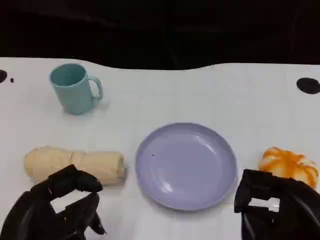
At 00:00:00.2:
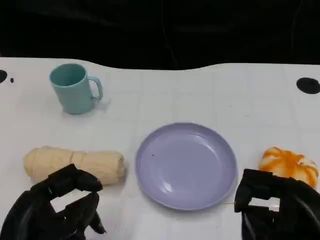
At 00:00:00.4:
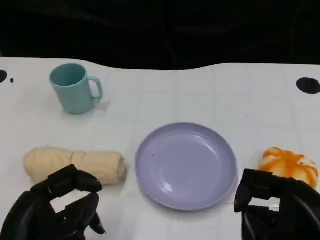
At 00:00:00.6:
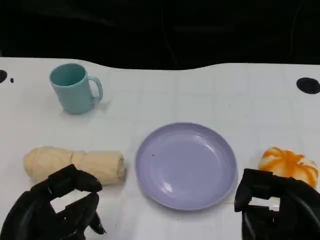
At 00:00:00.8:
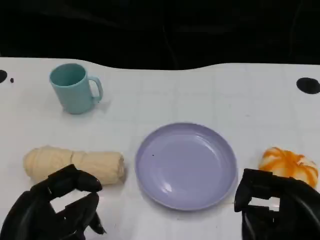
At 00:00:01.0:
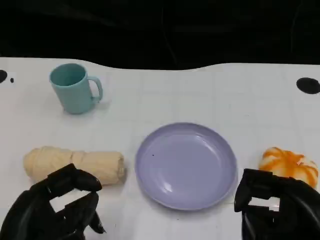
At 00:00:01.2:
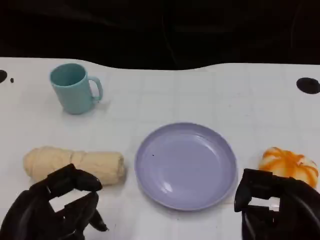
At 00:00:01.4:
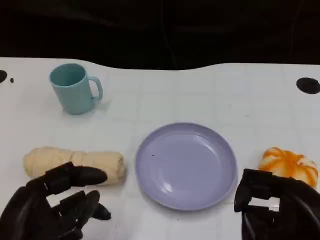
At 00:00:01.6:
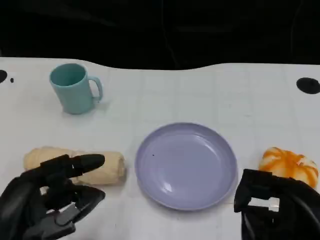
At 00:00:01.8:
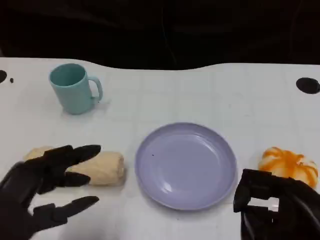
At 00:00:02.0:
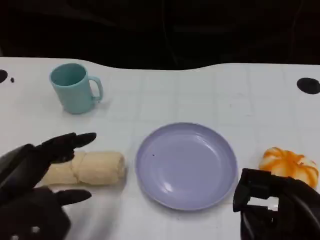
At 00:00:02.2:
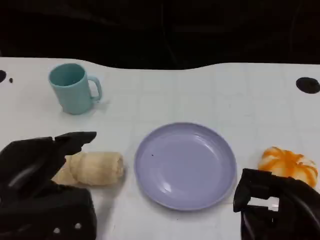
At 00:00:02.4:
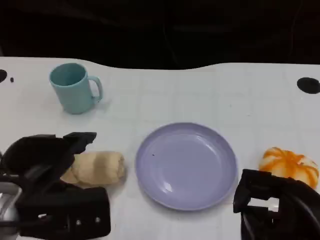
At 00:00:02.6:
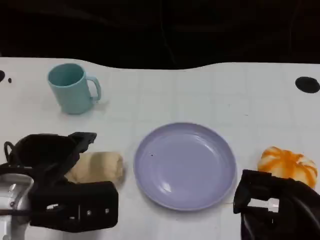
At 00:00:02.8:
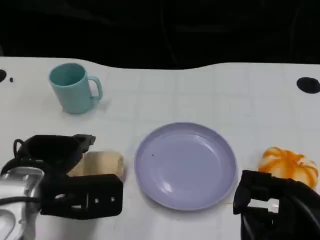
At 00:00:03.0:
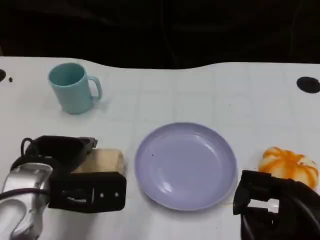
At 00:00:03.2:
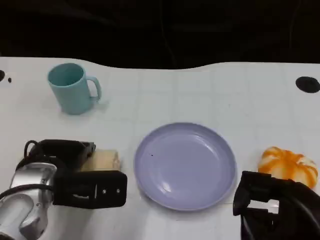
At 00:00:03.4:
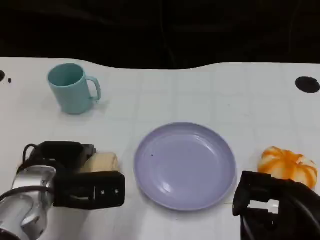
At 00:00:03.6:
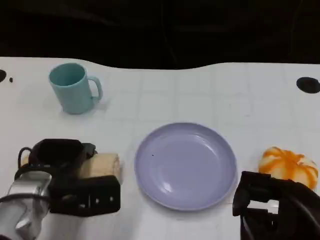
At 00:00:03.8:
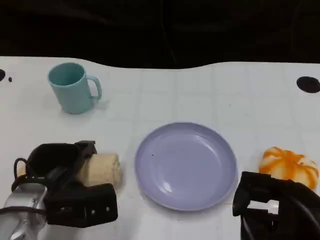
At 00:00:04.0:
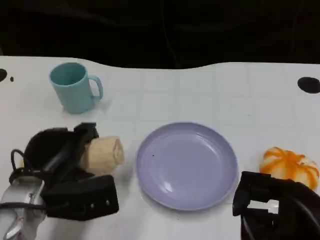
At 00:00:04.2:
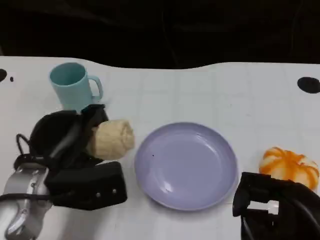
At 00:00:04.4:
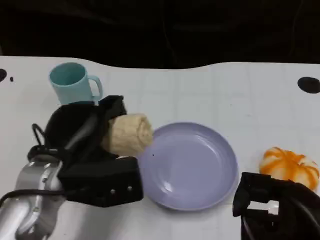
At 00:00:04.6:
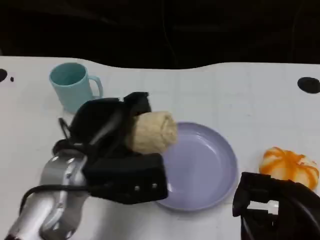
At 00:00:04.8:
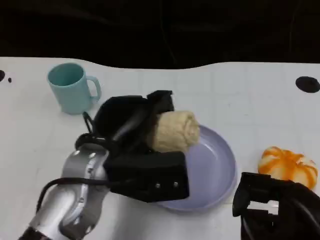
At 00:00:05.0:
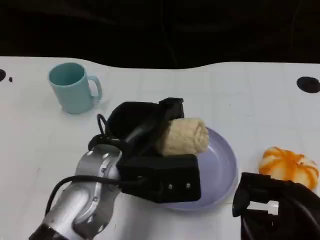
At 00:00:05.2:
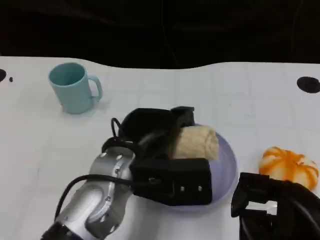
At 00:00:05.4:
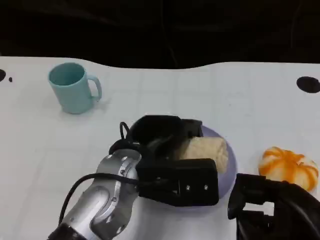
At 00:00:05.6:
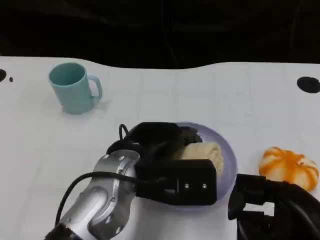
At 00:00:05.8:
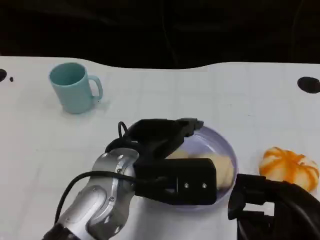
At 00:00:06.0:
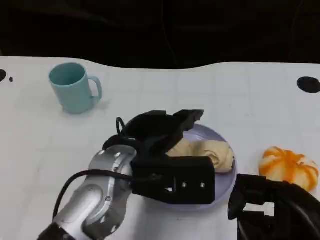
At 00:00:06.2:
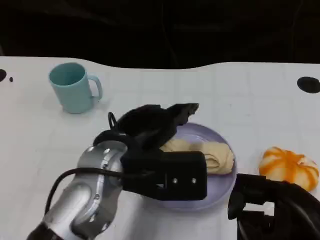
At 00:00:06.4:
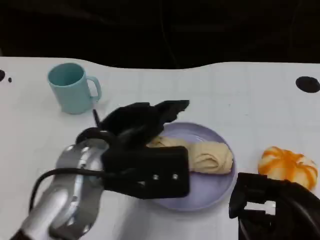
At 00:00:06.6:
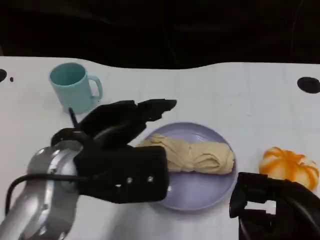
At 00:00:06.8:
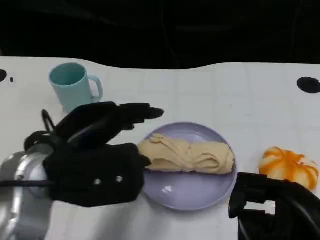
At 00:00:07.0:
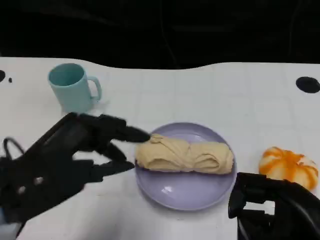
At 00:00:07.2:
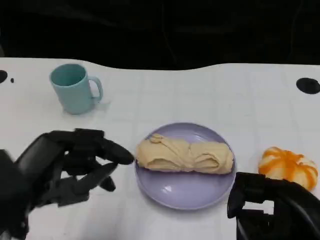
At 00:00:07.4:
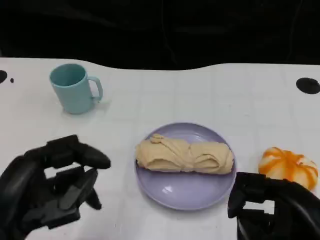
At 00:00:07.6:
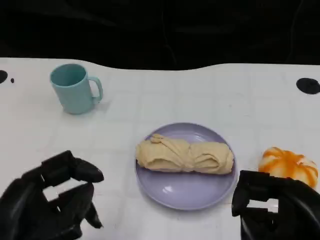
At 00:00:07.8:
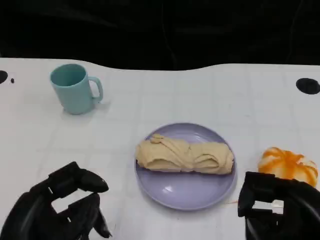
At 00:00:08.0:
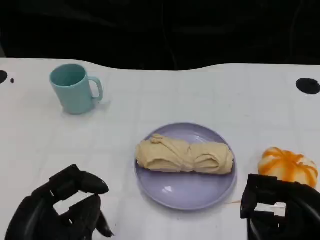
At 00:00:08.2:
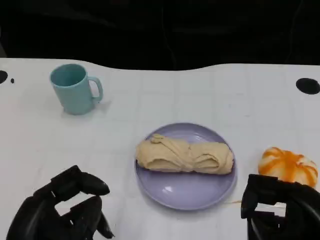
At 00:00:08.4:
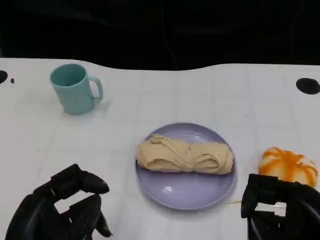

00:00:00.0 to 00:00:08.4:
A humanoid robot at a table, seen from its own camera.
Task of the whole recording: Grasp the towel on the left side of the plate with the left hand and place it into the plate.
00:00:00.0 to 00:00:01.4: There are only small adjustments of the hands.
00:00:01.4 to 00:00:02.8: The left hand shifts about 10 cm forward.
00:00:04.2 to 00:00:05.6: The left hand travels to the right by about 10 cm.
00:00:05.6 to 00:00:07.0: The left hand shifts approximately 15 cm to the left and backward.
00:00:07.0 to 00:00:08.4: The left hand moves backward and downward, approximately 10 cm.

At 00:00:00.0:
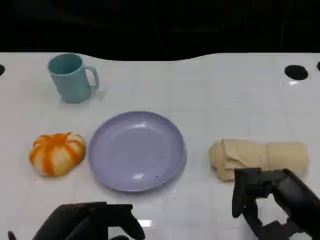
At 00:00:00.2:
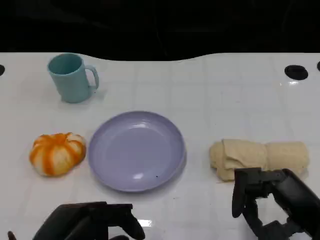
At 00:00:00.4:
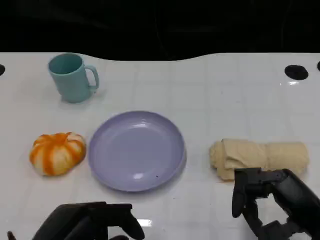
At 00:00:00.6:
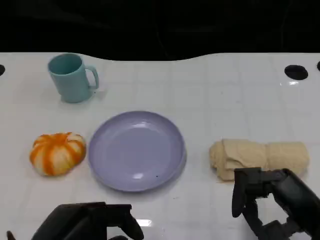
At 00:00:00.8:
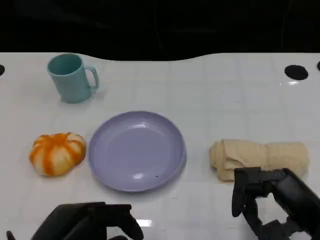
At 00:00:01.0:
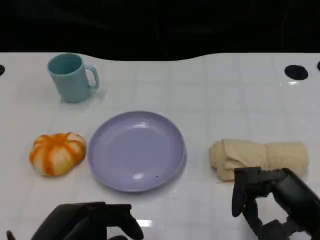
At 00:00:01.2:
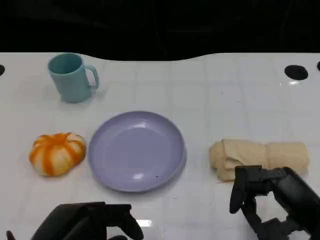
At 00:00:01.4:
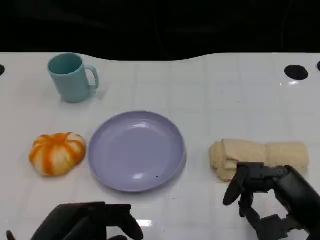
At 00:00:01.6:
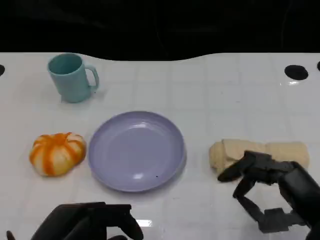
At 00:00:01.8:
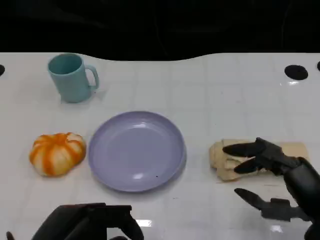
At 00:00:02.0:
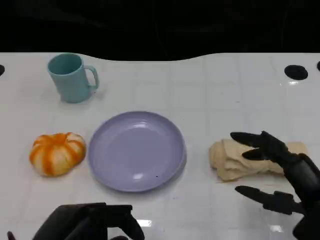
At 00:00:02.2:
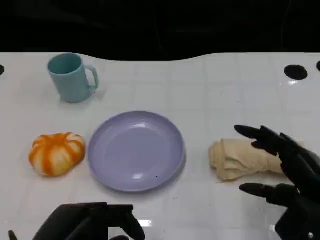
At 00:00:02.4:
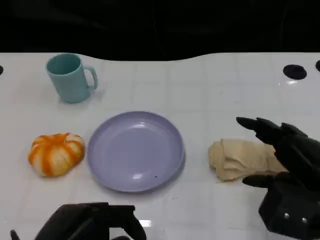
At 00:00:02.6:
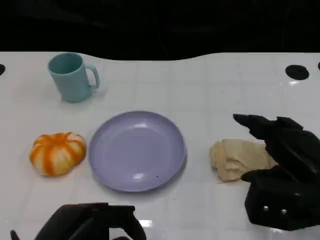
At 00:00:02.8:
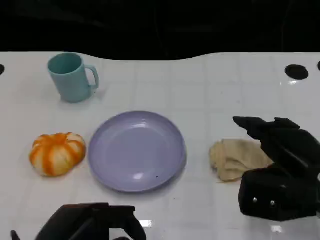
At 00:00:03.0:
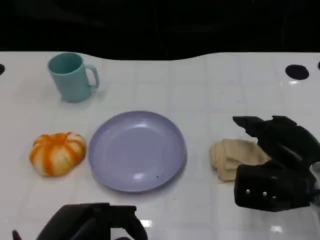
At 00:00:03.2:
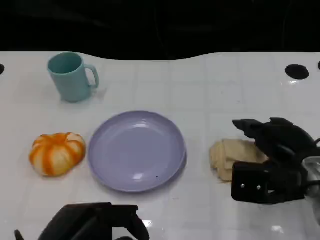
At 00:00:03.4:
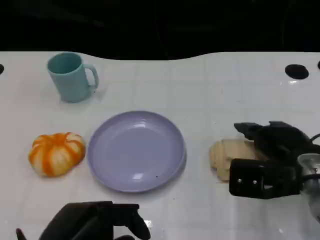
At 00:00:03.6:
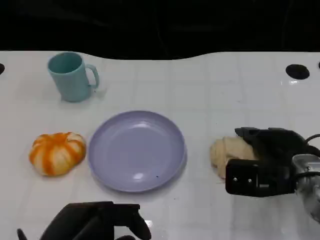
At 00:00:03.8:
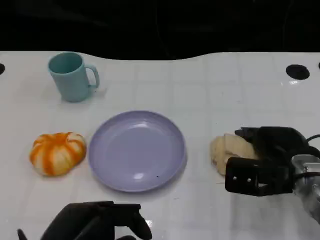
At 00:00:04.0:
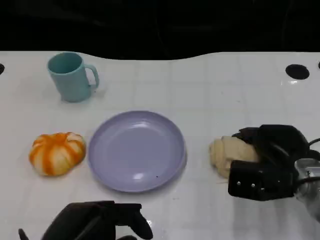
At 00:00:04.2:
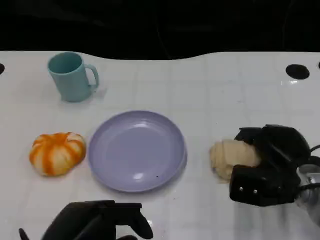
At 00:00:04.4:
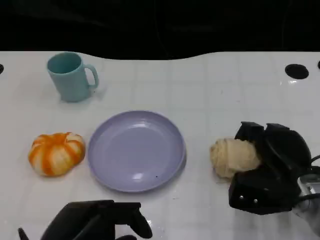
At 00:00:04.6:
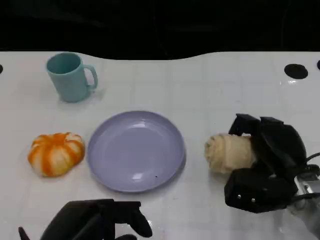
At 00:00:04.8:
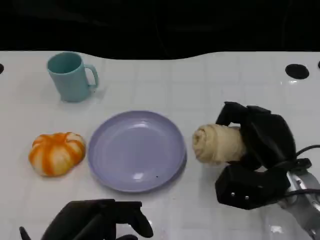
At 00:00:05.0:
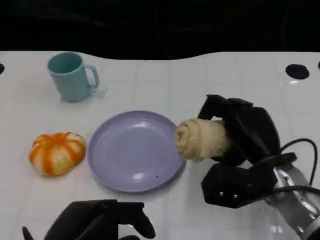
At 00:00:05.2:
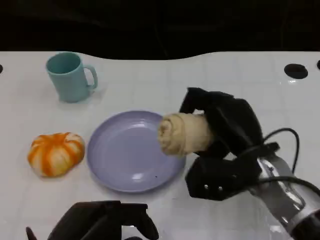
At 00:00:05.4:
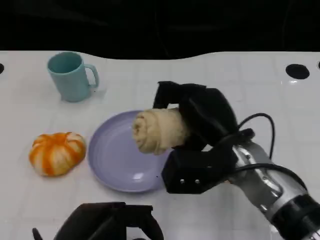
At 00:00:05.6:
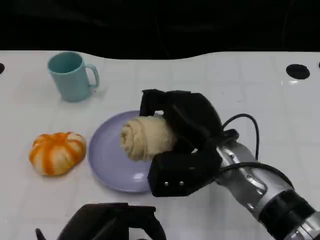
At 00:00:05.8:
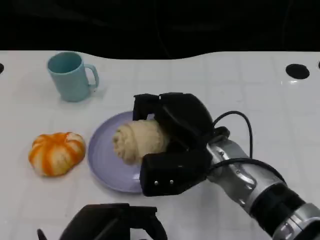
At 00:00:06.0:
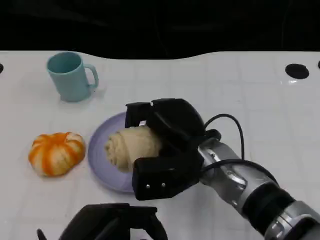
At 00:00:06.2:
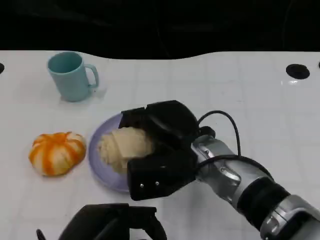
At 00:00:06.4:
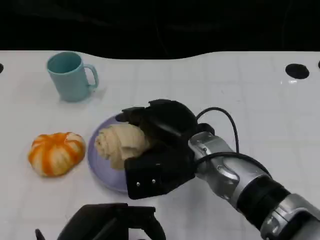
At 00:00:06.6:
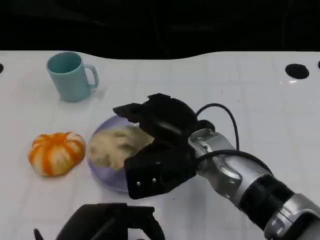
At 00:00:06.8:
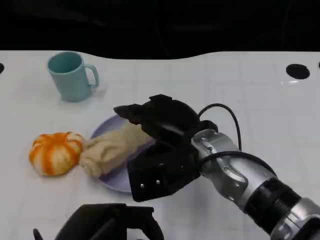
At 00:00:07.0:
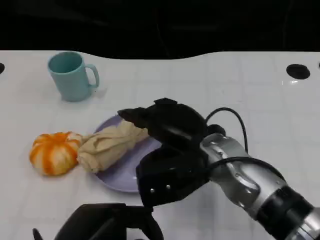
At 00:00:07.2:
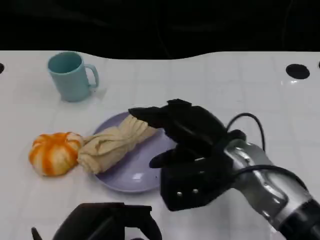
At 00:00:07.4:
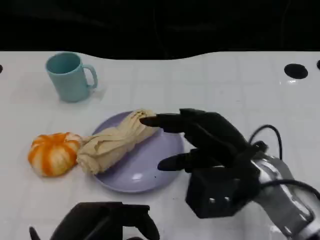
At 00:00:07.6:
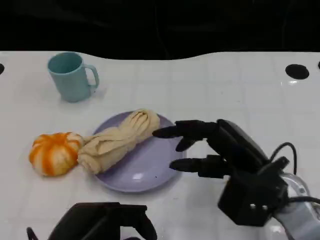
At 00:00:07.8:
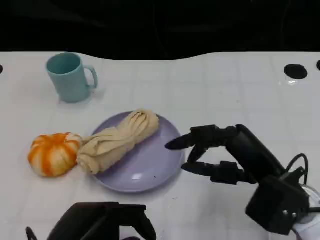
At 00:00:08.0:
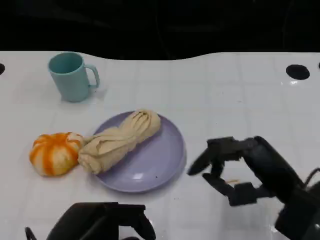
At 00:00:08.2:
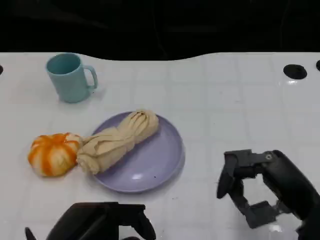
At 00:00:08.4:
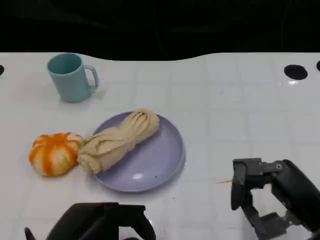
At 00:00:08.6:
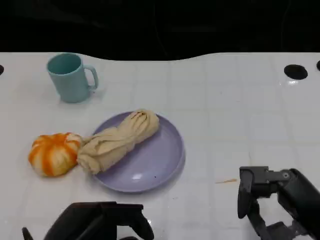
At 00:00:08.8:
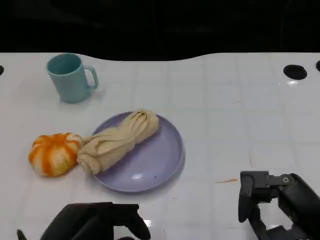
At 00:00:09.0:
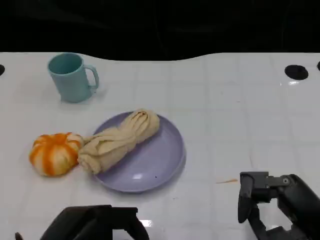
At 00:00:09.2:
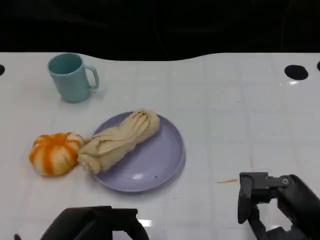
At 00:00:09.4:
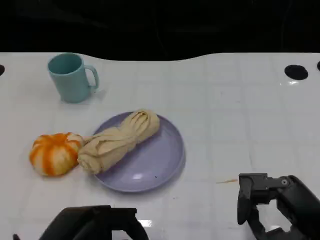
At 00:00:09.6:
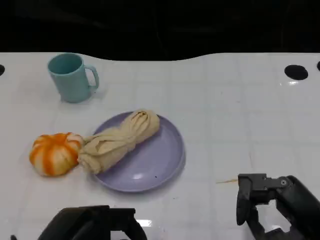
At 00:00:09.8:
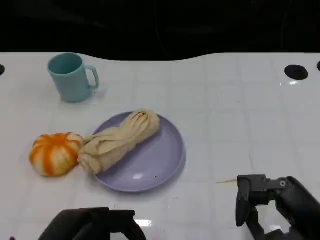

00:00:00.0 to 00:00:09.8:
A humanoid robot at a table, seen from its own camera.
Task of the whole recording: Grasp the towel on the left side of the plate with the left hand and place it into the plate.
00:00:00.0 to 00:00:01.4: Both hands stay about where they are.
00:00:01.4 to 00:00:02.8: The right hand shifts roughly 5 cm forward.
00:00:02.8 to 00:00:04.2: The right hand is displaced downward by about 5 cm.
00:00:04.2 to 00:00:05.6: The right hand moves to the left and upward, roughly 15 cm.
00:00:07.0 to 00:00:08.4: The right hand moves to the right and backward, some 20 cm.
00:00:08.4 to 00:00:09.8: There are only small adjustments of the hands.

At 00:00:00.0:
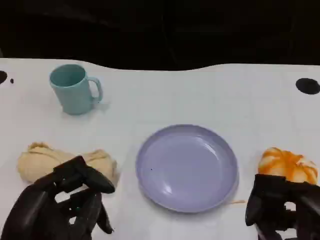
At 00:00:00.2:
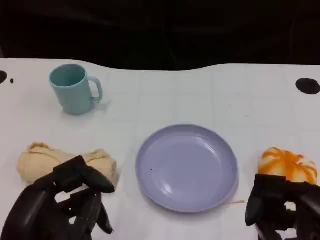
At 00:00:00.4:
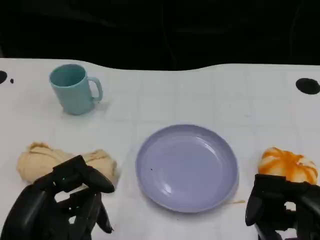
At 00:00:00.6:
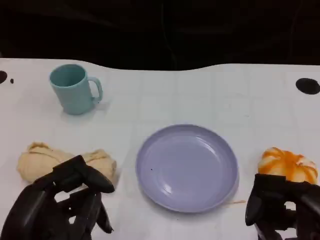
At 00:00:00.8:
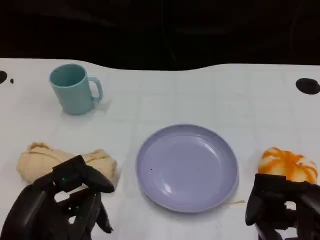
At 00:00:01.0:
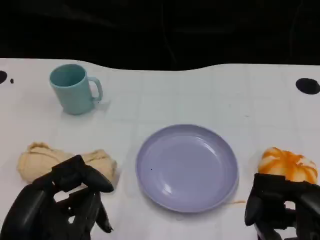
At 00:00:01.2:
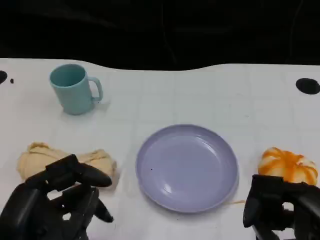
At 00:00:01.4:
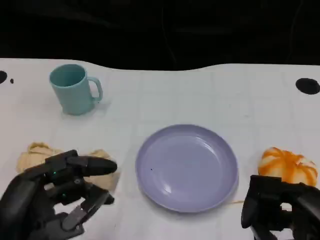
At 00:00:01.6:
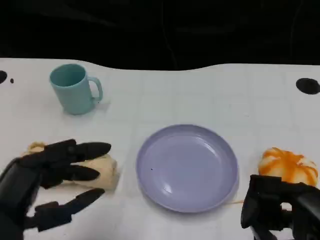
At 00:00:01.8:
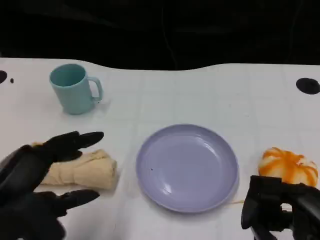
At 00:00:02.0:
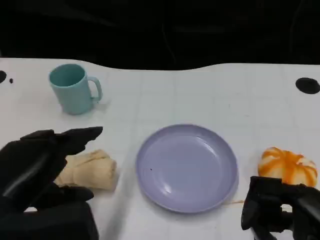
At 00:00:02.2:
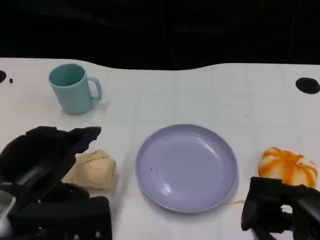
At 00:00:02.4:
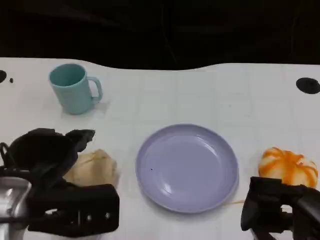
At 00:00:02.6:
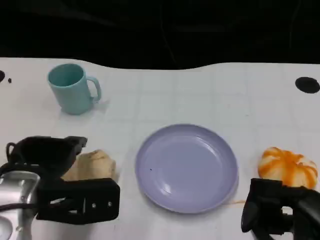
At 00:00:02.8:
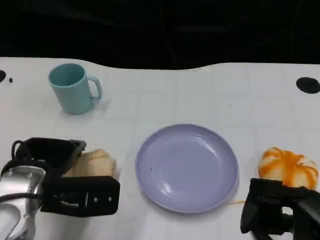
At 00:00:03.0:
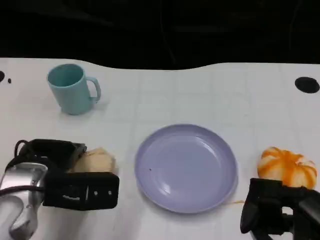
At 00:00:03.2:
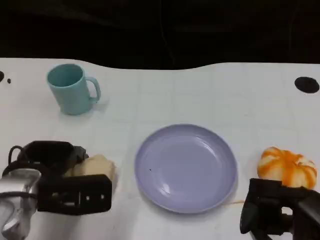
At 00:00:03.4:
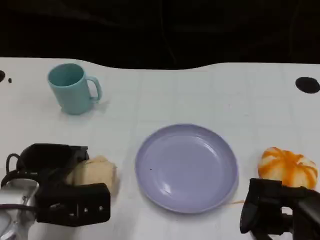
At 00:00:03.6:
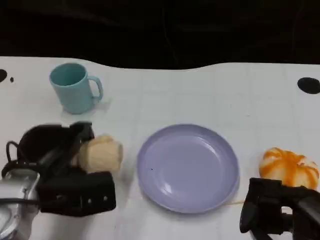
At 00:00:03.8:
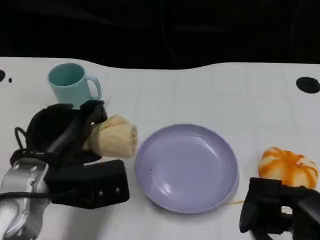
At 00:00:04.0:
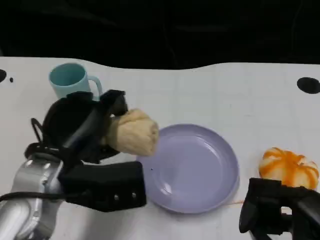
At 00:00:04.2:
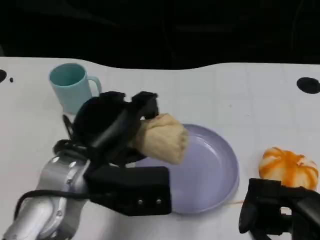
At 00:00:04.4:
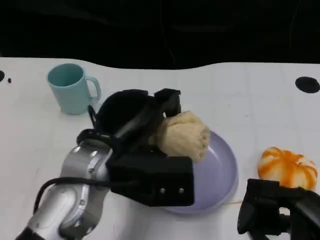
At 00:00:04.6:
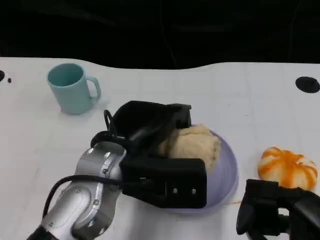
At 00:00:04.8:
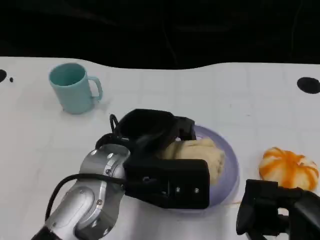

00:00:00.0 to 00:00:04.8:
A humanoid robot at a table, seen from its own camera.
Task of the whole recording: Grasp the towel on the left side of the plate with the left hand and place it into the plate.
00:00:01.6 to 00:00:03.2: The left hand travels forward and downward by approximately 15 cm.
00:00:03.2 to 00:00:04.8: The left hand shifts approximately 15 cm to the right and upward.
